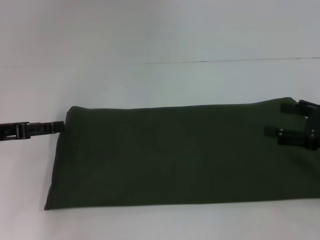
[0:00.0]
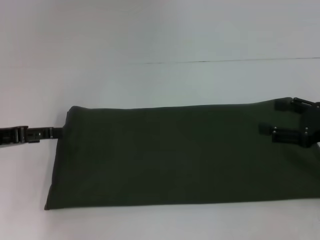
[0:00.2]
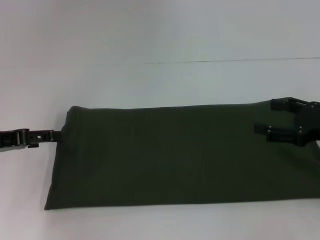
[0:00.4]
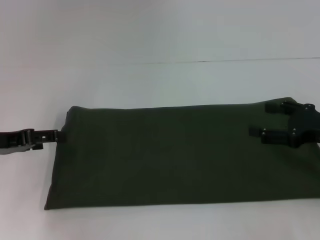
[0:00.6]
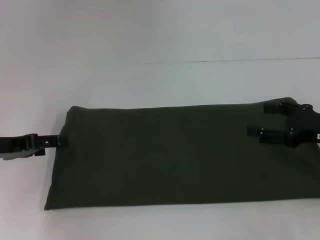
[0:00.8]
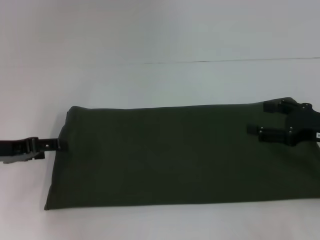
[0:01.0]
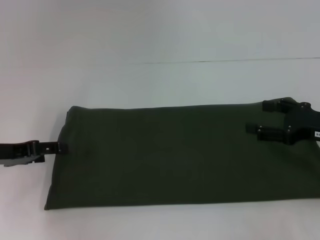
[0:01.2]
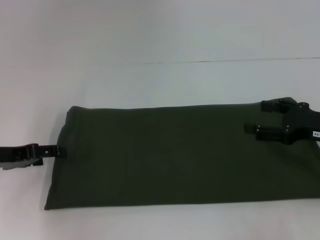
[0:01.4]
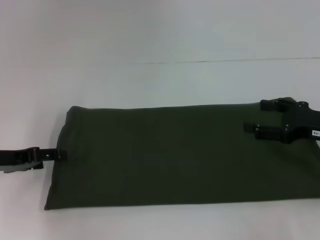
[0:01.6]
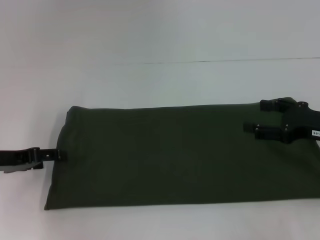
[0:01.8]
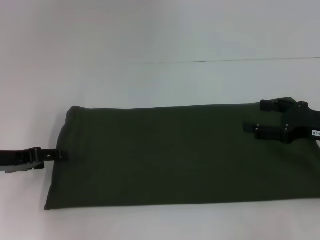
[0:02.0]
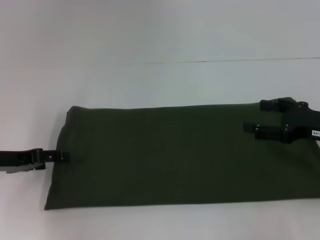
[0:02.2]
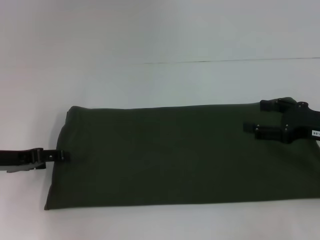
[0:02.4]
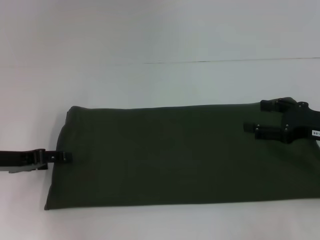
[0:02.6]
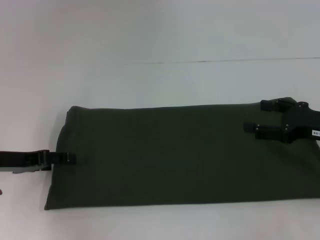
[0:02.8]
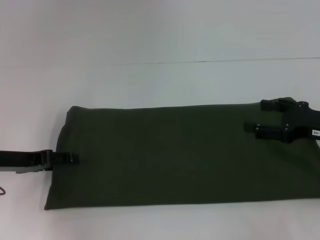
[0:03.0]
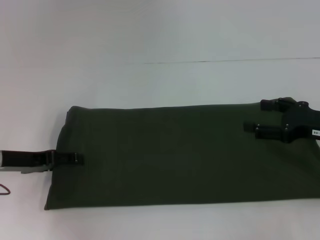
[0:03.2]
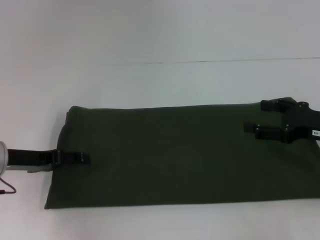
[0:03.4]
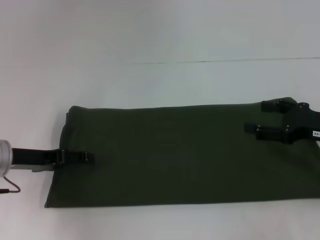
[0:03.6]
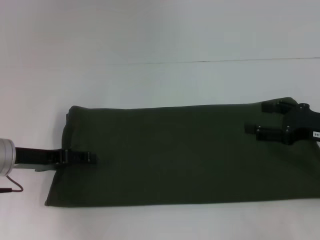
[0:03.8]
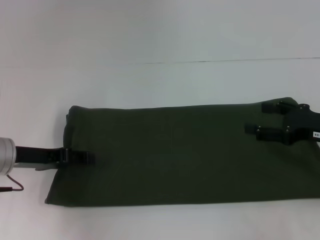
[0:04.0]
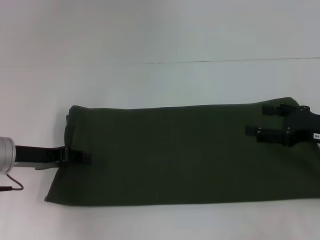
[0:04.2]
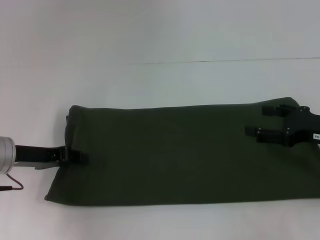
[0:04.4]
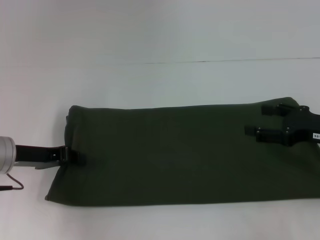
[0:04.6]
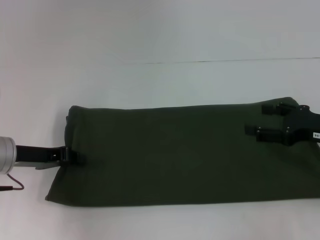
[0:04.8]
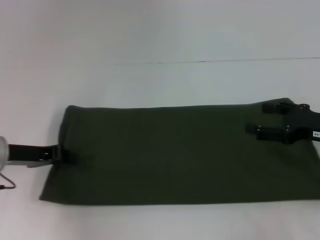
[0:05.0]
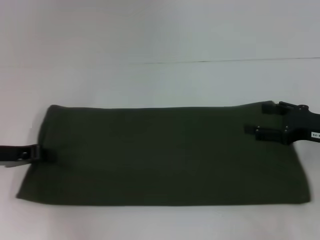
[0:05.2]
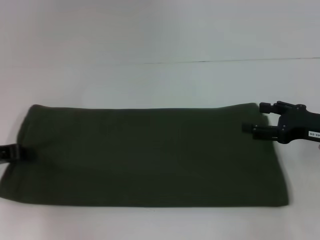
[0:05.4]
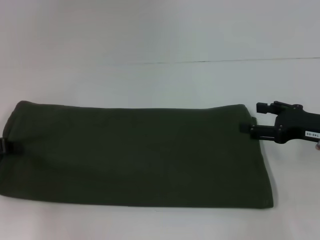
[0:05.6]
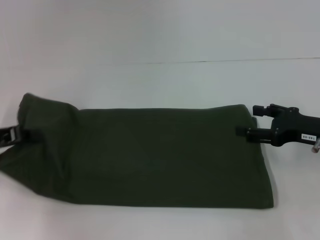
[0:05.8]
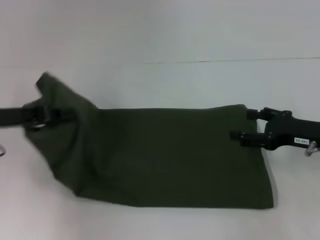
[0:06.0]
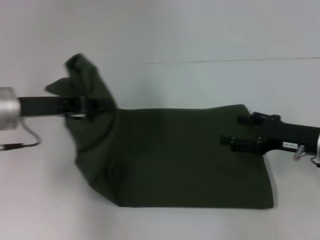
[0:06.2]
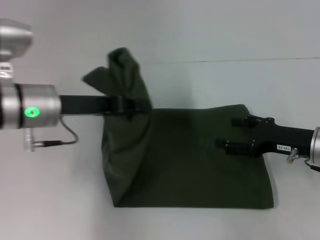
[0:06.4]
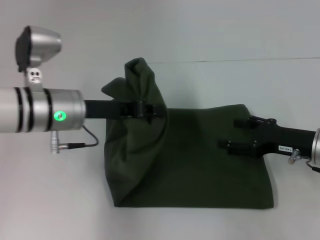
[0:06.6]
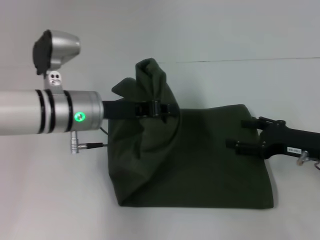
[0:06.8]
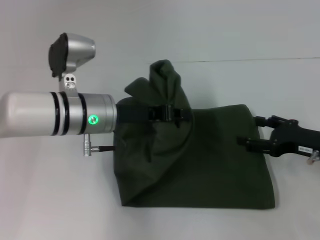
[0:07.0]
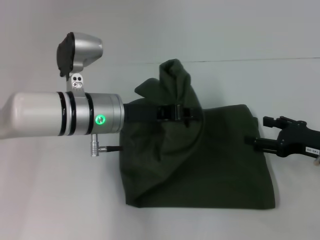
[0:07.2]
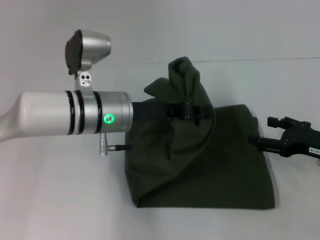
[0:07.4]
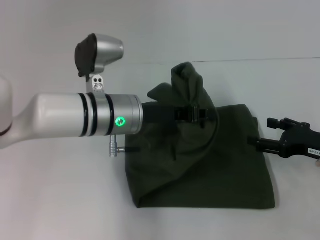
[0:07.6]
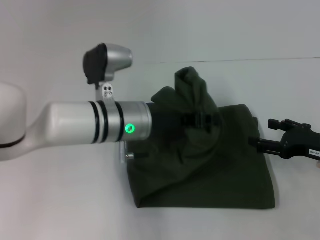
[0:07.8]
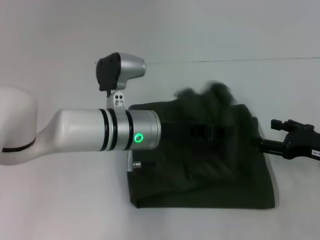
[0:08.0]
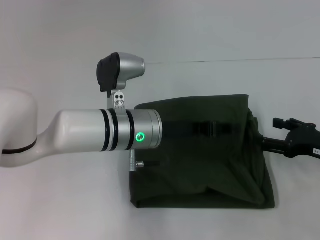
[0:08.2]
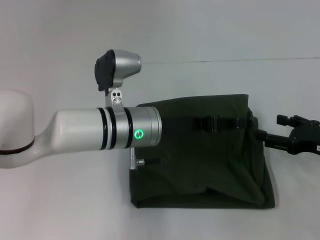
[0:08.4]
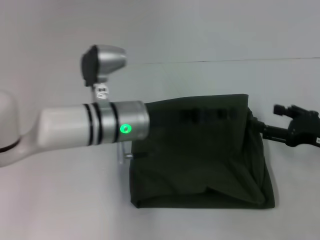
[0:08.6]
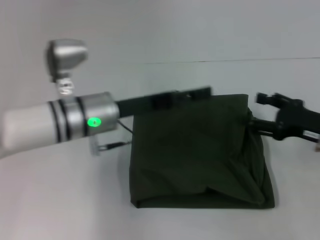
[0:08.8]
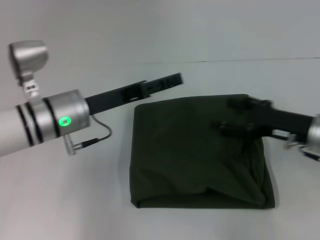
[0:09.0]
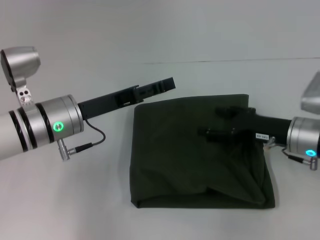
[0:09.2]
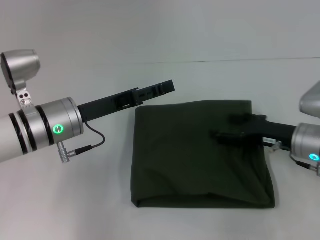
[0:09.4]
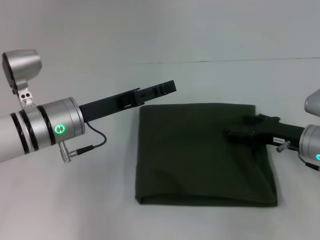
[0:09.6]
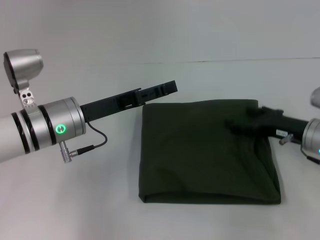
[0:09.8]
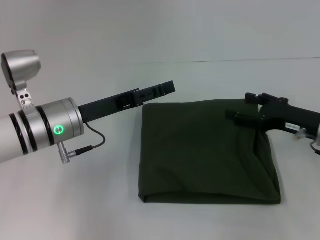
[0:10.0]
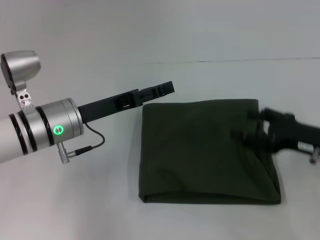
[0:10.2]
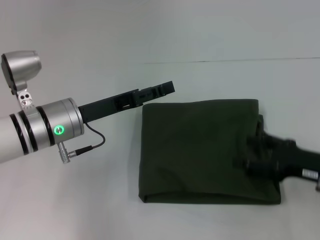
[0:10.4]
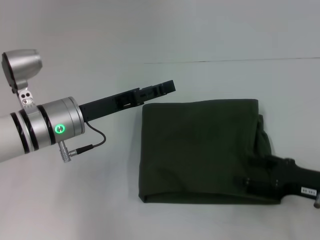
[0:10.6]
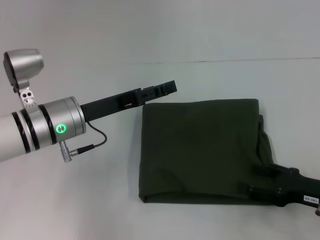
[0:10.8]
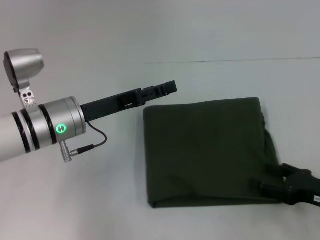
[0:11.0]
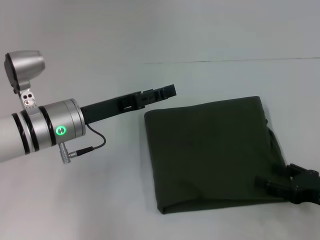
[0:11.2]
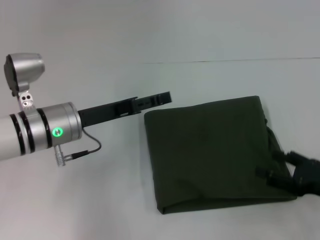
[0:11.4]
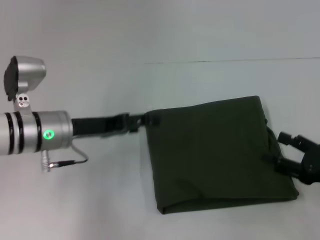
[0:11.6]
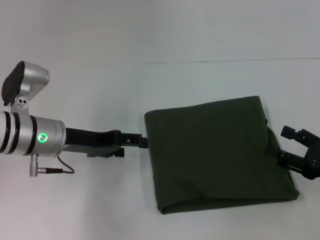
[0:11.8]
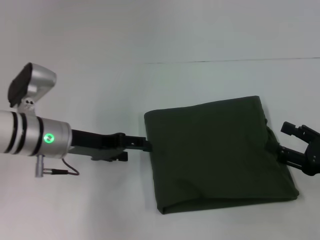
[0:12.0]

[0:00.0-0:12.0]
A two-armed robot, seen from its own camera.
Step, 0:00.0 to 0:08.0: Fold the clothes with your left hand.
0:00.0 to 0:01.6: The grippers stay close to where they were, moving slightly.
0:03.0 to 0:04.4: The left gripper closes up.
0:04.4 to 0:06.0: The left gripper goes roughly 5 cm upward, moves roughly 10 cm to the left and comes back, and closes its fingers.
0:06.0 to 0:07.6: The left gripper goes about 20 cm to the right.
0:07.6 to 0:09.0: Both grippers move to the left, roughly 5 cm. The left gripper opens.
0:09.0 to 0:10.4: The right gripper is displaced backward by approximately 5 cm.

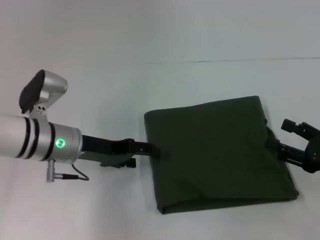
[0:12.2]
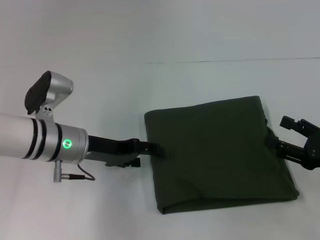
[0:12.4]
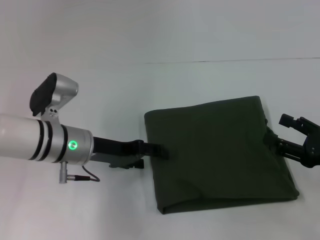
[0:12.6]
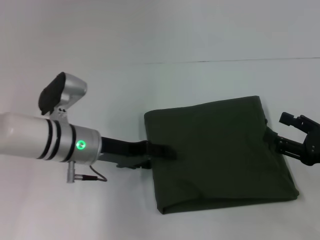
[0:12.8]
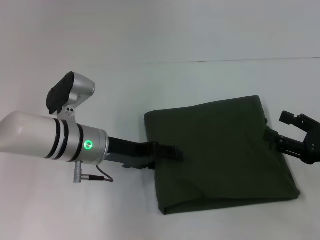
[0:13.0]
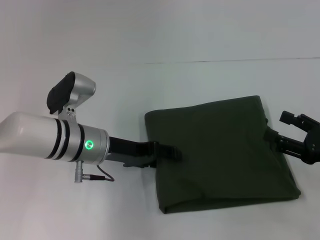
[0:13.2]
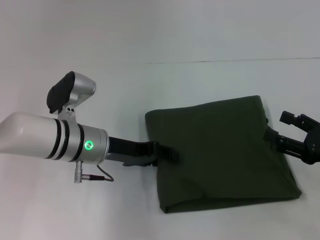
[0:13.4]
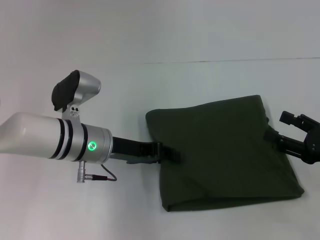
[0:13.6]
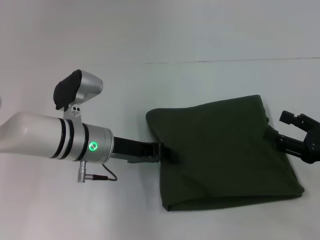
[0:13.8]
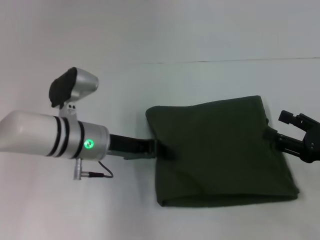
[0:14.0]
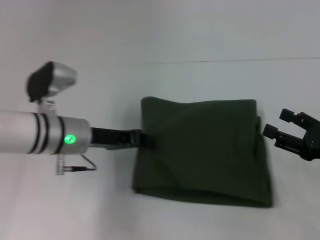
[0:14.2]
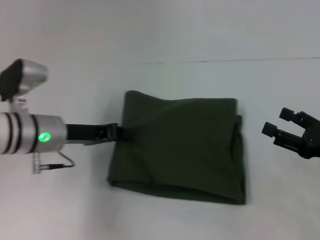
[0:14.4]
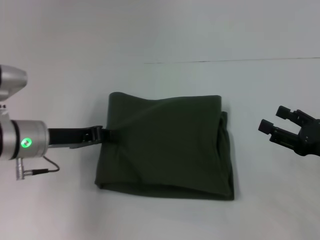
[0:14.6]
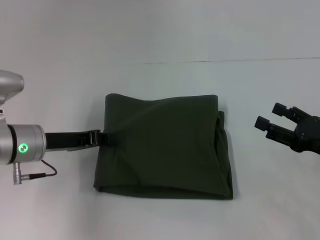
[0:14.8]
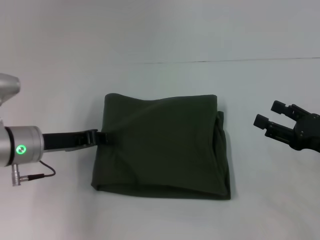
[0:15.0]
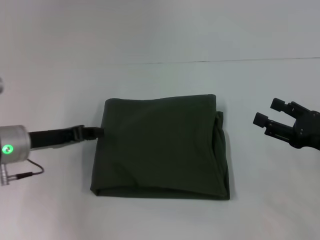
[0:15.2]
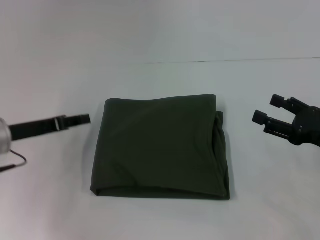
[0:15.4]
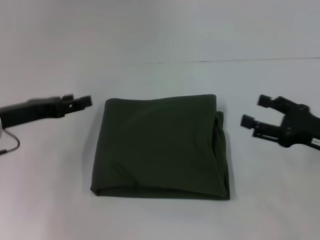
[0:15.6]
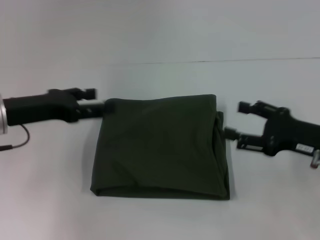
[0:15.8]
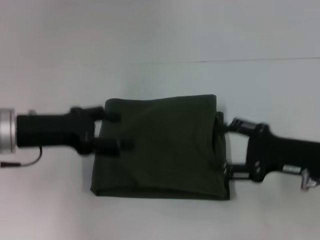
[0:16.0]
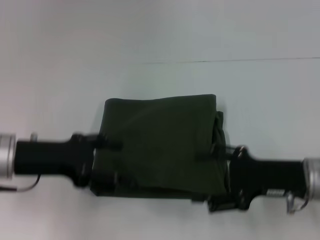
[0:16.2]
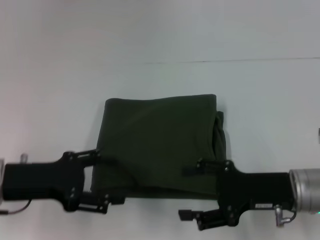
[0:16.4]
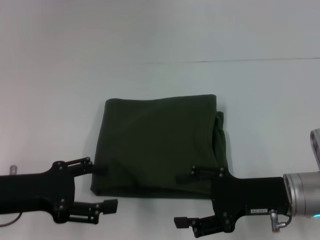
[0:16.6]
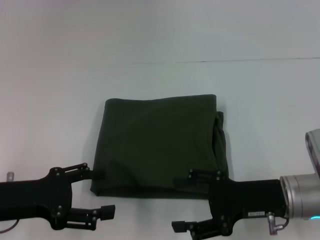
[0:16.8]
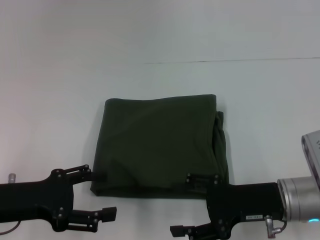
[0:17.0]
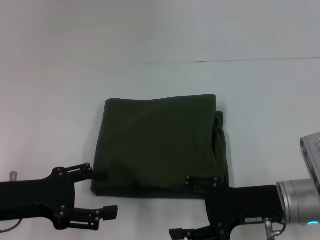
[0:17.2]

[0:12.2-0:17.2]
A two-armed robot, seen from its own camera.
0:12.2 to 0:13.8: The left gripper closes.
0:13.8 to 0:15.6: The left gripper travels to the left by some 15 cm.
0:15.6 to 0:17.2: The right gripper shifts approximately 10 cm to the left; the left gripper shifts some 10 cm backward, and opens up.
